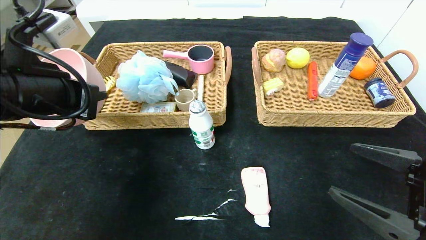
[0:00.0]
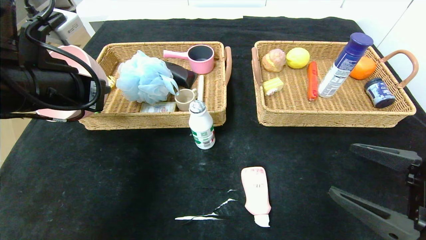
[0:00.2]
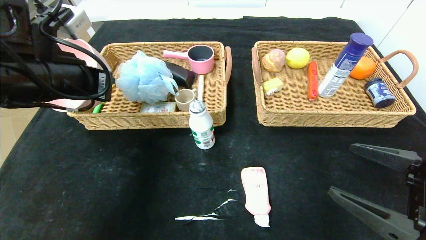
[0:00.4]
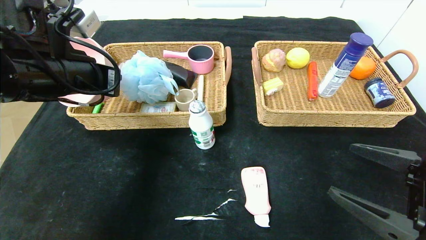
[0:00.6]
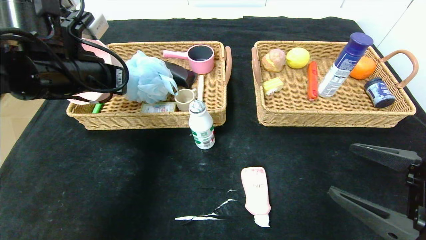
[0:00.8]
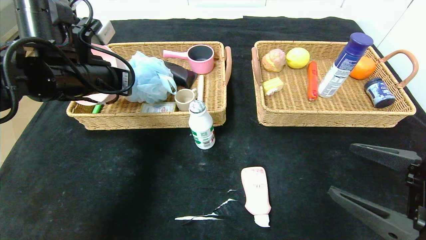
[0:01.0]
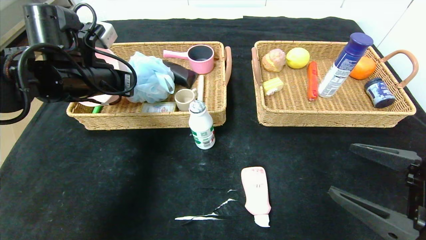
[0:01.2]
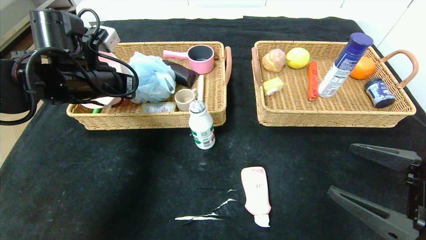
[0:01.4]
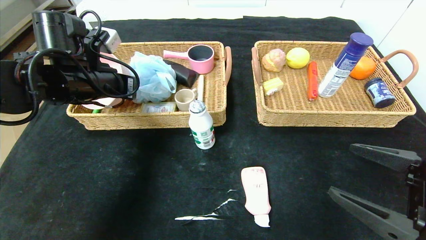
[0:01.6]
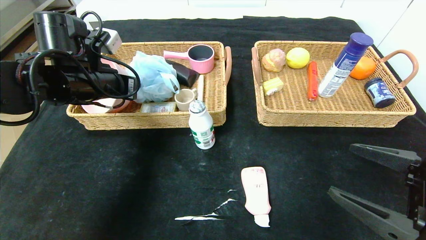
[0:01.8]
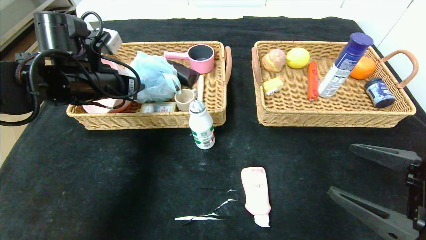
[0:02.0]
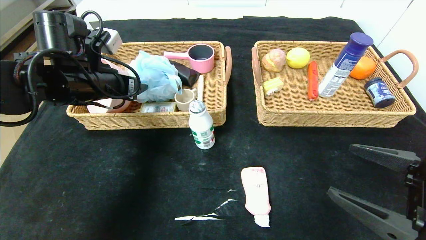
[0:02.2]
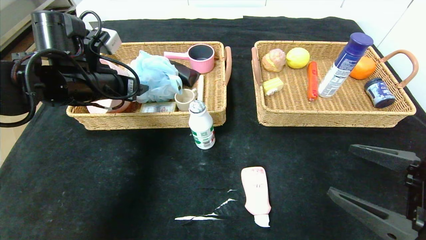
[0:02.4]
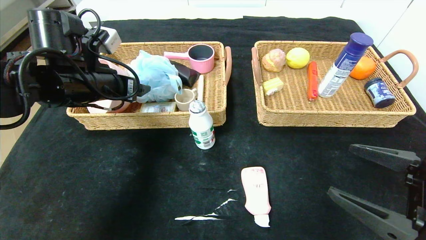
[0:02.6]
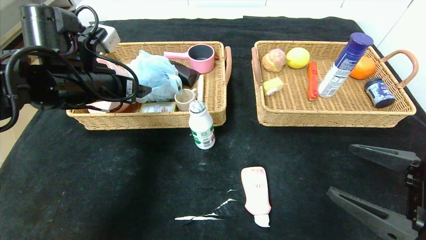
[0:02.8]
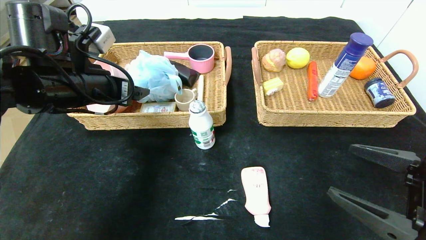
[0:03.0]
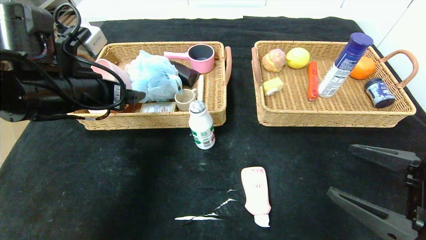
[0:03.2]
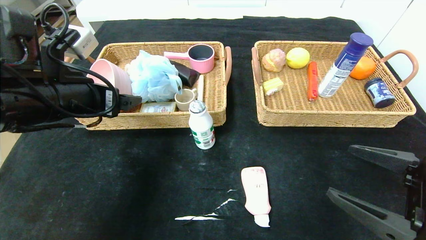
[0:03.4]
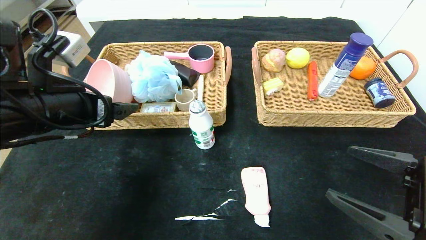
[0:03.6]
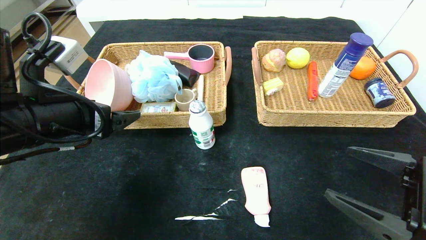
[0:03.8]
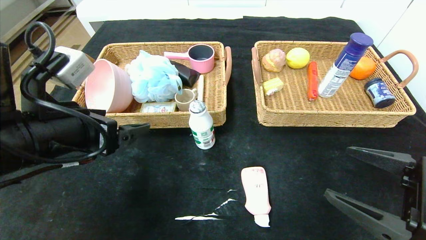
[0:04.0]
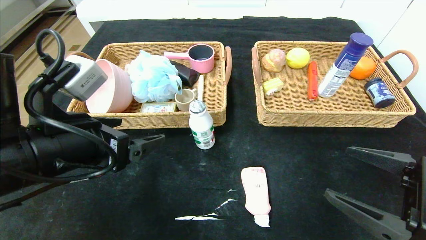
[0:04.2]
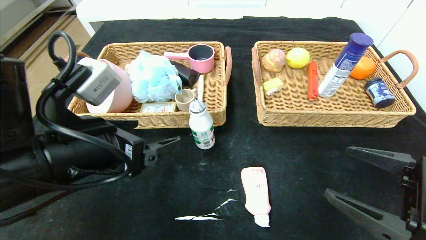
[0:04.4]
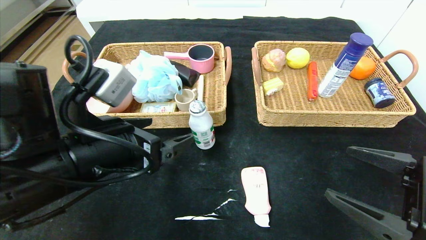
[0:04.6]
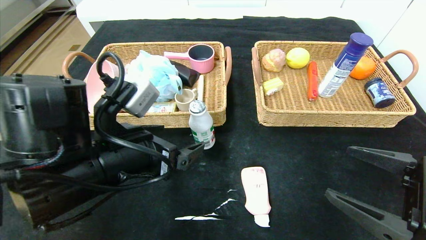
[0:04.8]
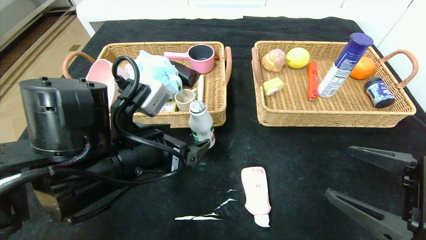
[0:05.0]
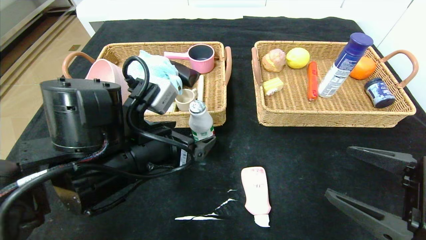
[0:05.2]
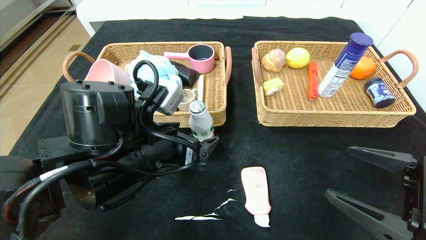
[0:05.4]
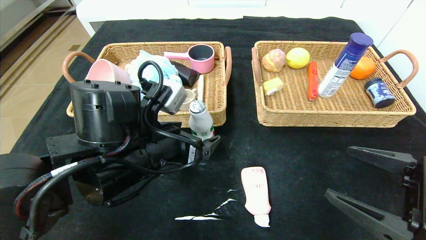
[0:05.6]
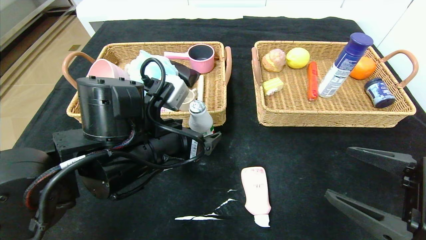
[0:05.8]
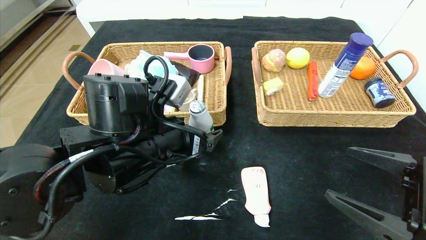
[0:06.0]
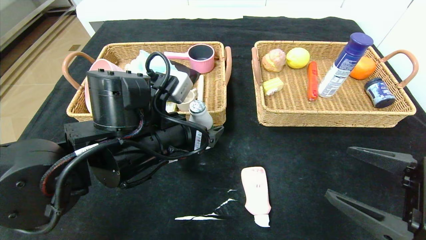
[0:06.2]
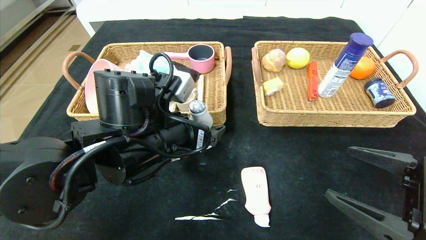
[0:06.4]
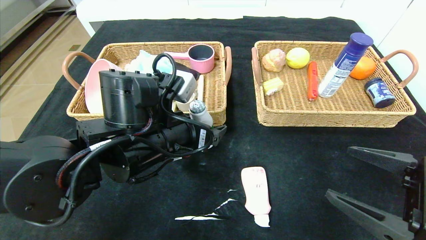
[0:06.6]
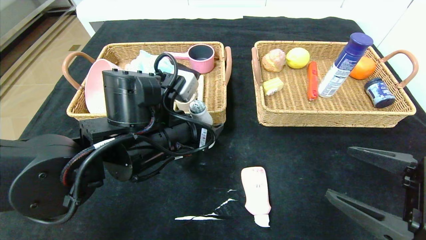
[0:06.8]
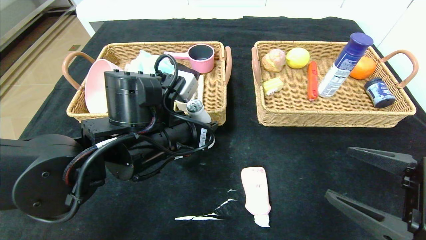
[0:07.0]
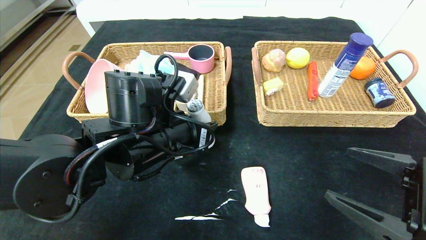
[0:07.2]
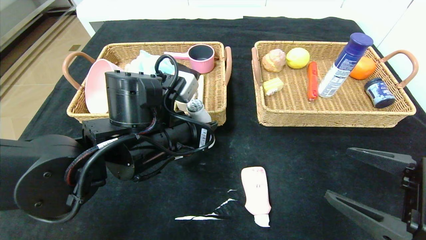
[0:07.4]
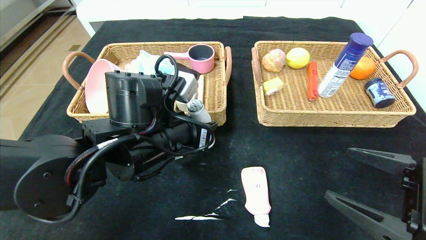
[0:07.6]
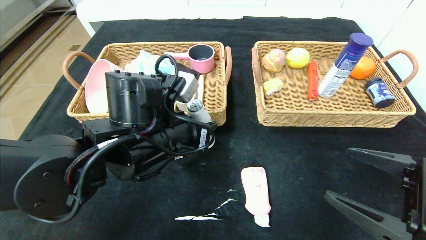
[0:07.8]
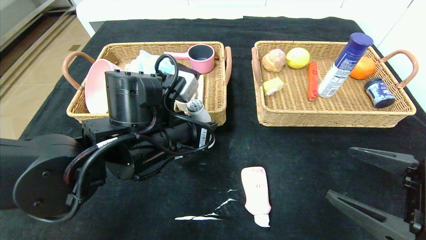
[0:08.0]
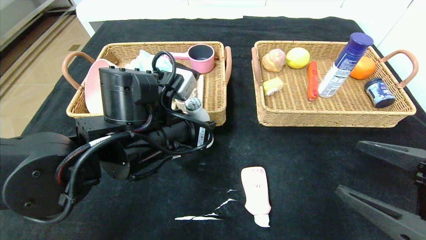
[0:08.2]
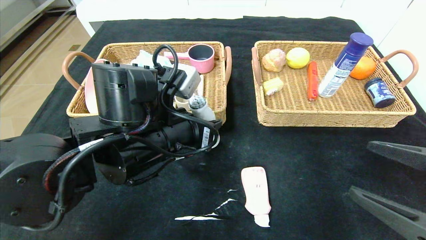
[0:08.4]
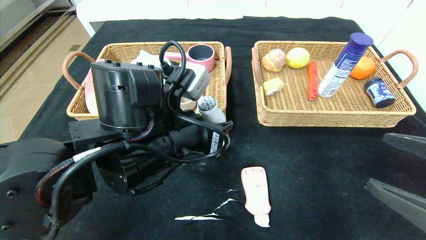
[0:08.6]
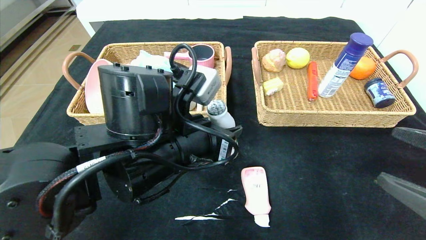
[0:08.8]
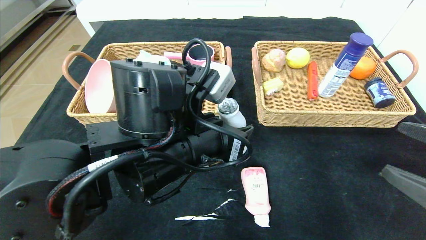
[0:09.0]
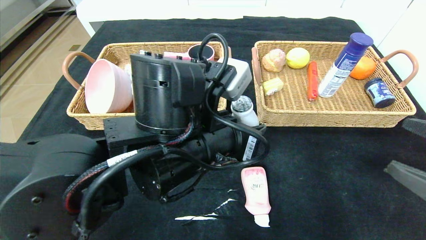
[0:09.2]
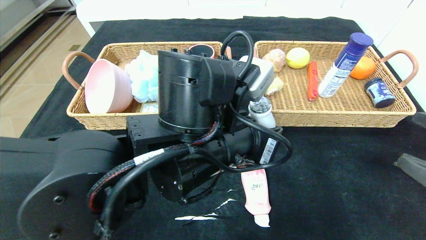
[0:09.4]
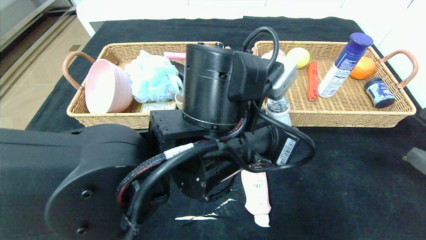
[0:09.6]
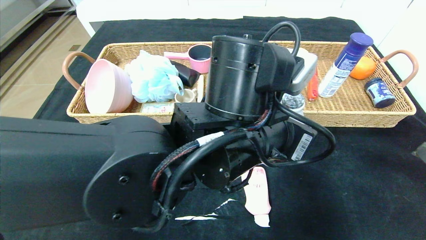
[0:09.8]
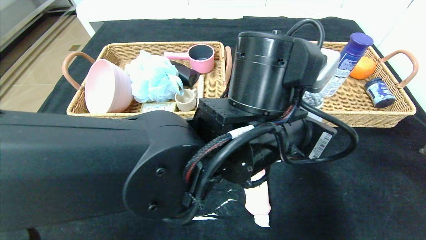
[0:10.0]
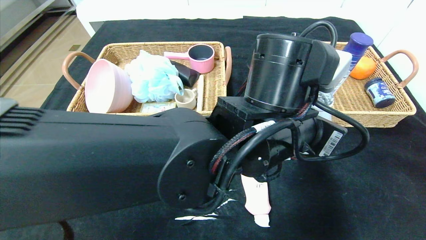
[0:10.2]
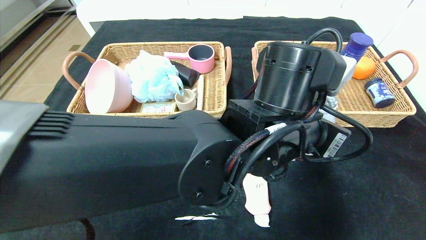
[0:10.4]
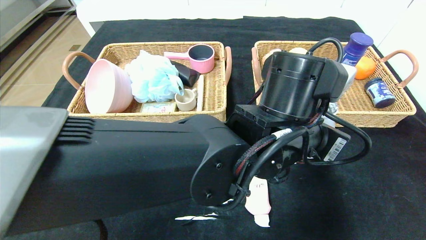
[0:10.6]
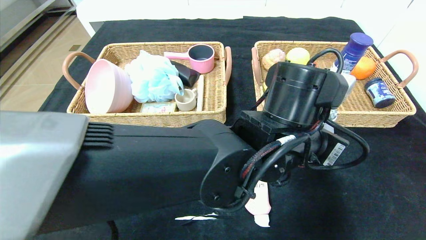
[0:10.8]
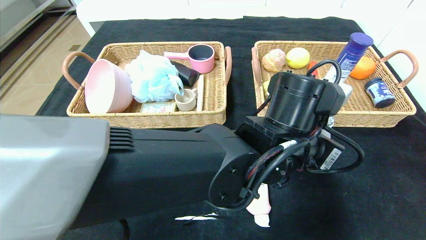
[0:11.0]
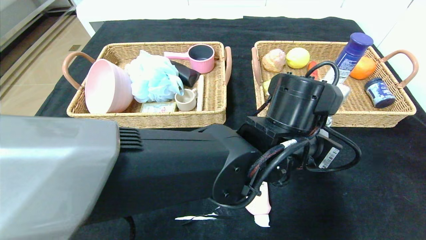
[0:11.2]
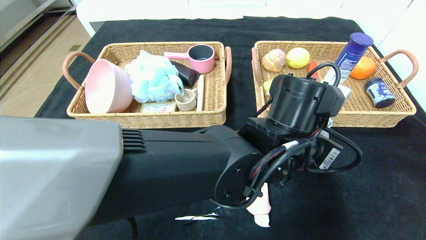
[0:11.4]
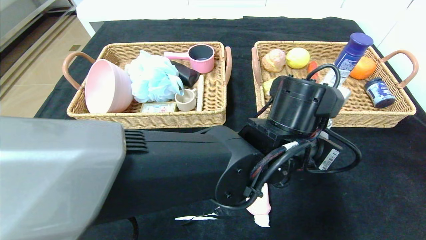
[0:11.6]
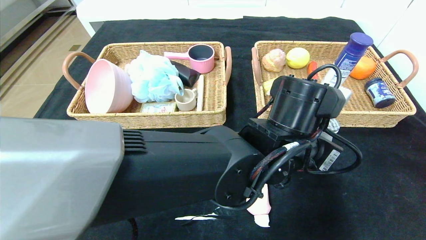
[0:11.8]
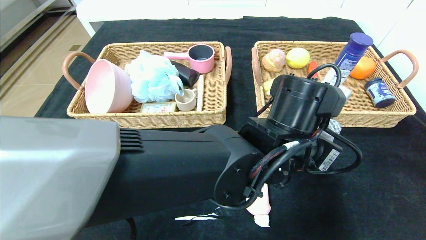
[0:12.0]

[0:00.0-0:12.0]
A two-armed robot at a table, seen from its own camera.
Step, 0.0 to 2.8 s: Grasp the pink bowl and put it in the left basket.
0.0 to 1.6 s: The left gripper heads forward, covering about 10 cm.
1.6 to 3.0 s: The left gripper opens.
3.0 to 4.4 s: The left gripper travels backward and to the right by roughly 15 cm.
4.4 to 6.0 s: The left gripper travels to the right and forward by some 10 cm.
6.0 to 7.6 s: The left gripper closes.
7.6 to 9.0 s: The right gripper shifts by about 5 cm. The left gripper shifts by about 5 cm.
9.0 to 10.4 s: The left gripper heads to the right, covering roughly 15 cm.

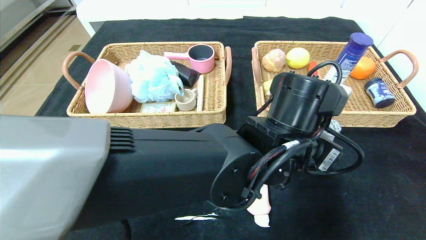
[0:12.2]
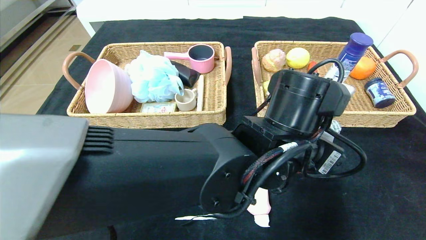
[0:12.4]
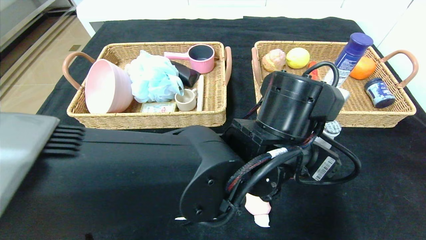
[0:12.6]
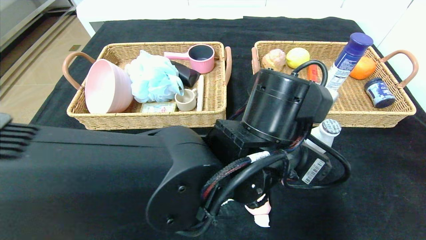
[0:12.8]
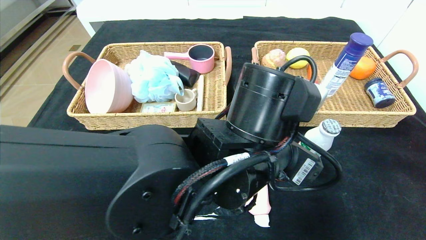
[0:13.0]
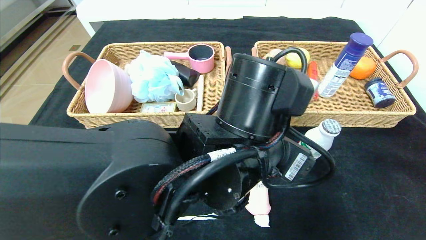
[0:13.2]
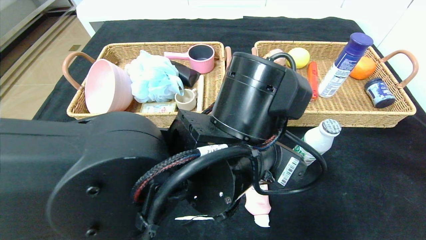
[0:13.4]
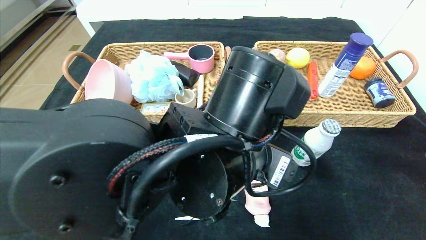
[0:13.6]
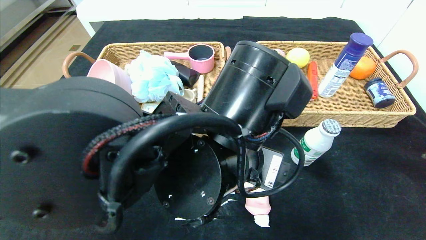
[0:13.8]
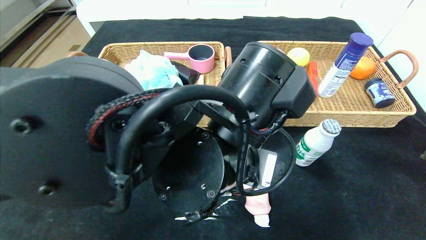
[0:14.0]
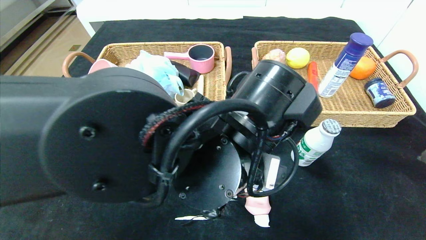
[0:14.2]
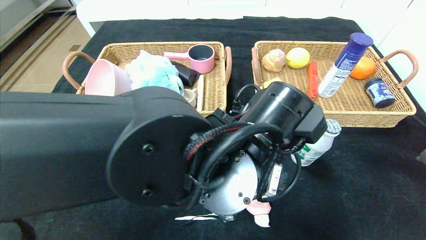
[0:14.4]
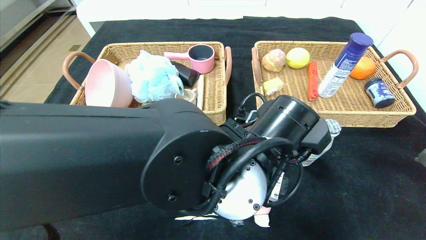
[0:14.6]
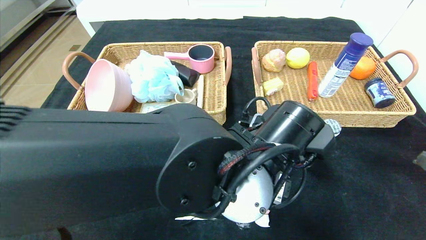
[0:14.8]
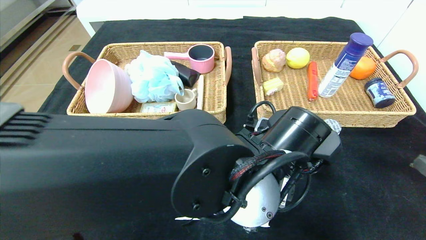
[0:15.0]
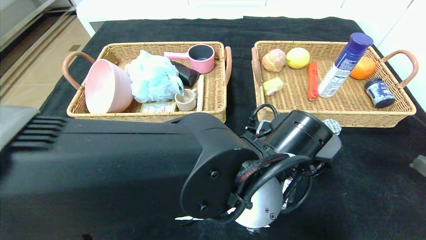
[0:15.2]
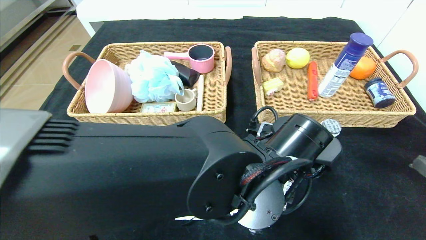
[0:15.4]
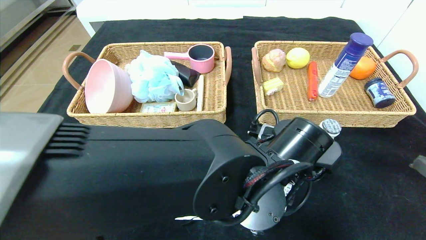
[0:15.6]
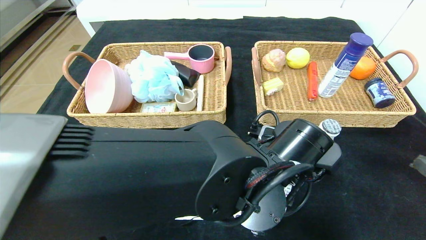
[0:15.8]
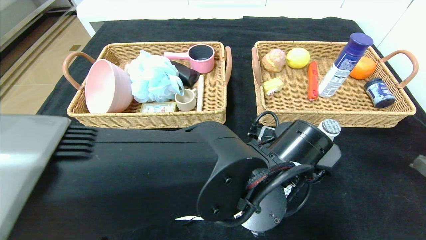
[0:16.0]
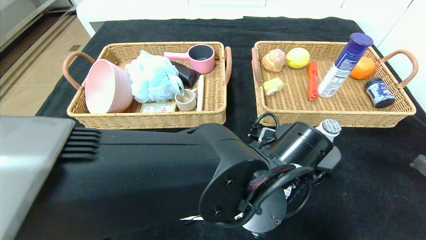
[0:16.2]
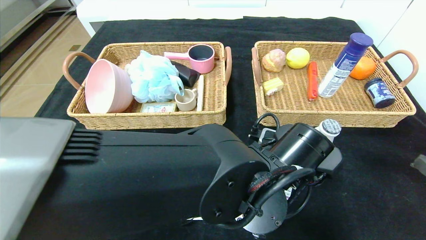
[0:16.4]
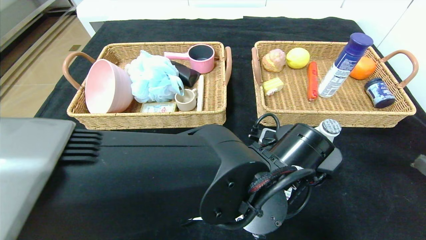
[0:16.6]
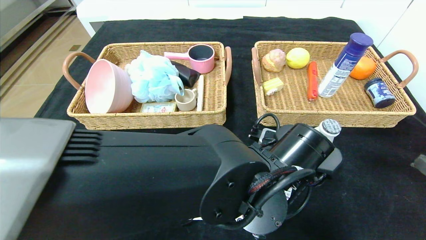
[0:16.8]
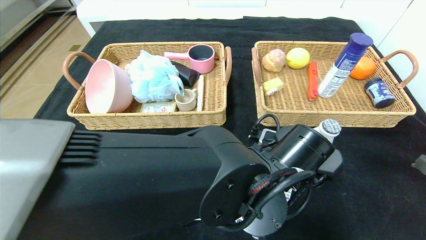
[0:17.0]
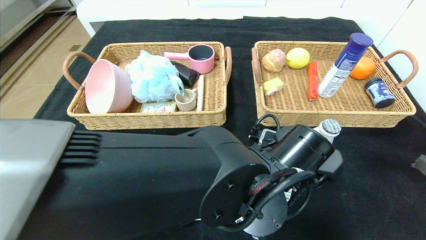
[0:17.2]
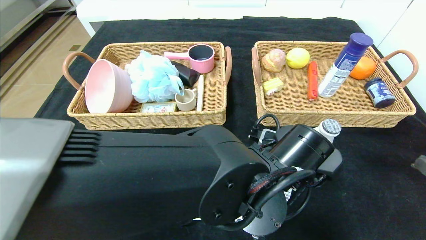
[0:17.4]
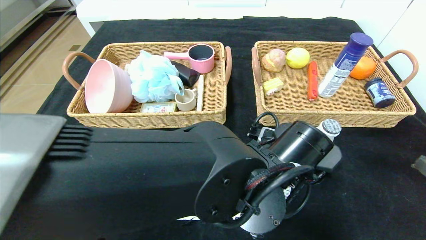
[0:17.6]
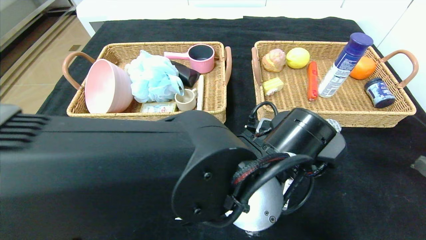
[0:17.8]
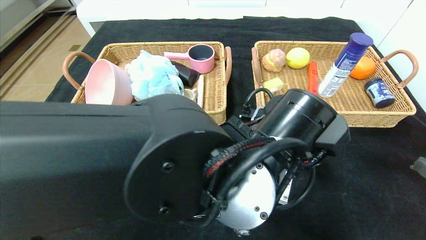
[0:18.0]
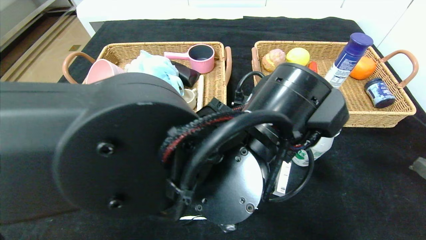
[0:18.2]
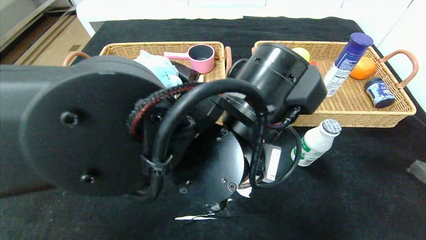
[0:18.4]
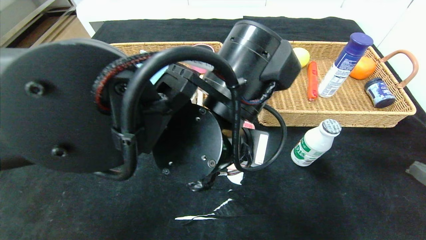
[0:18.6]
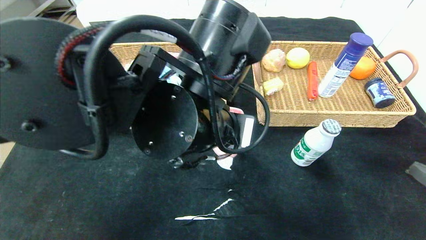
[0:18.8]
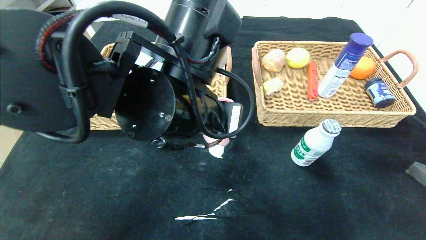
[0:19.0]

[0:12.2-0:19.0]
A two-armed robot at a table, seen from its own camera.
12.2 to 13.6 s: The left gripper is displaced to the left by roughly 10 cm.
13.6 to 15.0 s: The left gripper ends up some 5 cm from where it was.
15.0 to 16.2 s: The left gripper closes.
16.2 to 17.6 s: Both grippers stay put.
17.6 to 19.0 s: The left gripper is displaced upward and to the left by approximately 15 cm.
